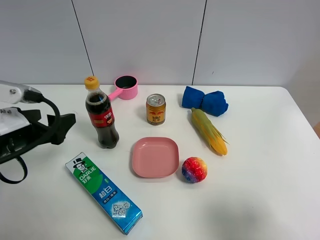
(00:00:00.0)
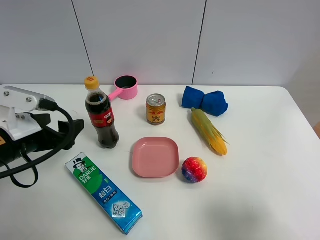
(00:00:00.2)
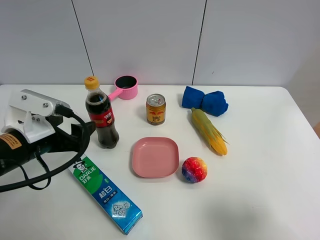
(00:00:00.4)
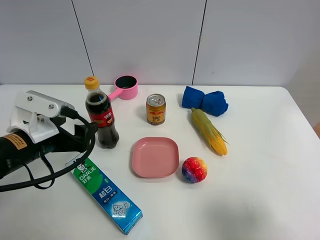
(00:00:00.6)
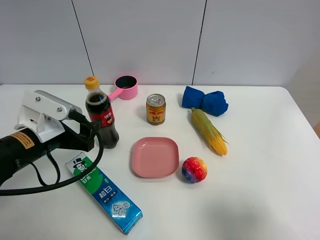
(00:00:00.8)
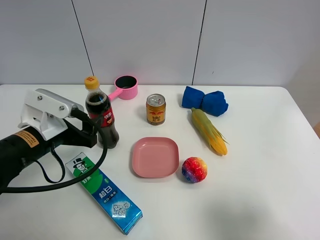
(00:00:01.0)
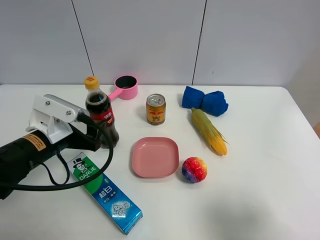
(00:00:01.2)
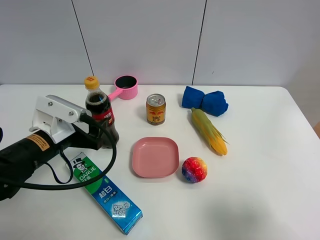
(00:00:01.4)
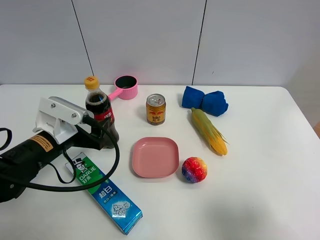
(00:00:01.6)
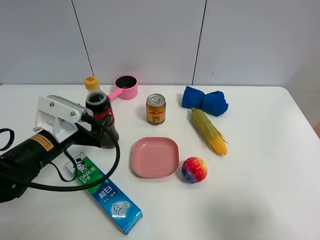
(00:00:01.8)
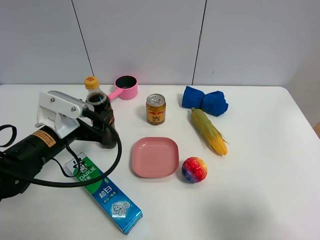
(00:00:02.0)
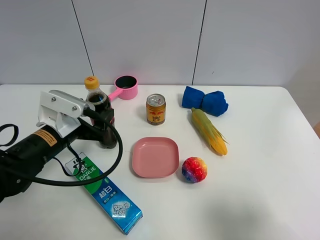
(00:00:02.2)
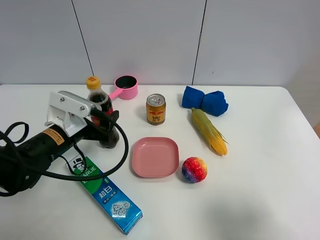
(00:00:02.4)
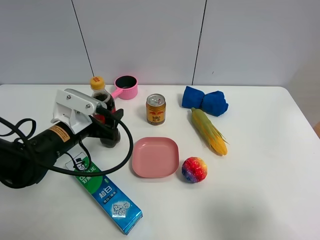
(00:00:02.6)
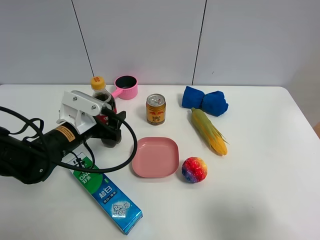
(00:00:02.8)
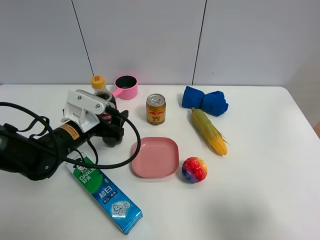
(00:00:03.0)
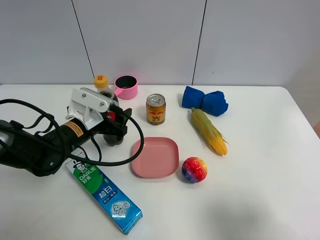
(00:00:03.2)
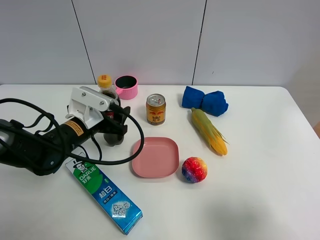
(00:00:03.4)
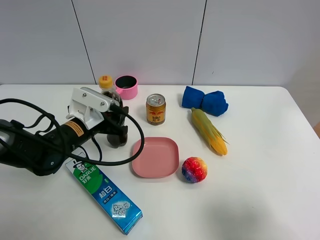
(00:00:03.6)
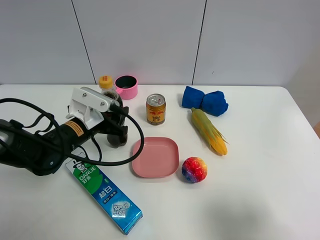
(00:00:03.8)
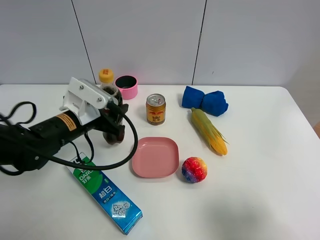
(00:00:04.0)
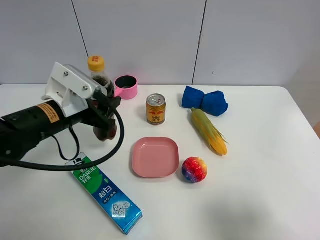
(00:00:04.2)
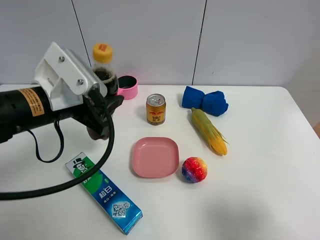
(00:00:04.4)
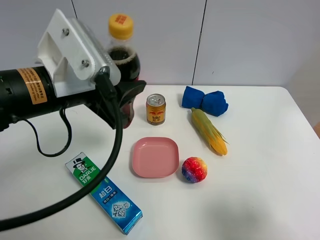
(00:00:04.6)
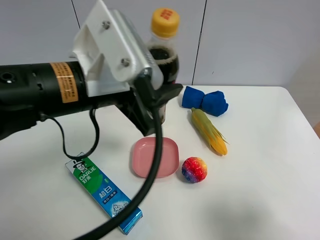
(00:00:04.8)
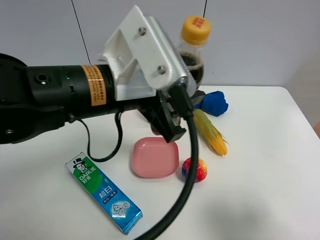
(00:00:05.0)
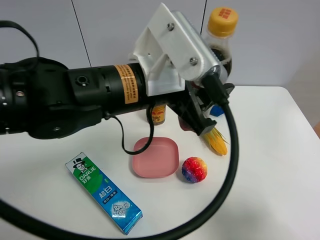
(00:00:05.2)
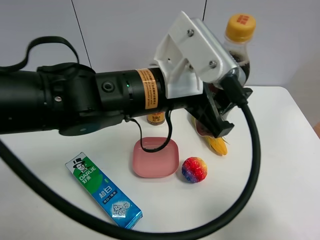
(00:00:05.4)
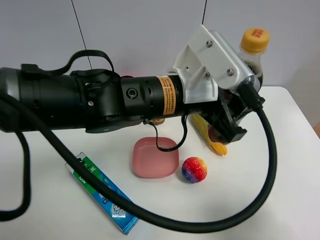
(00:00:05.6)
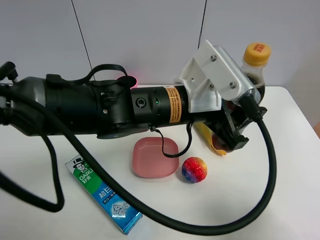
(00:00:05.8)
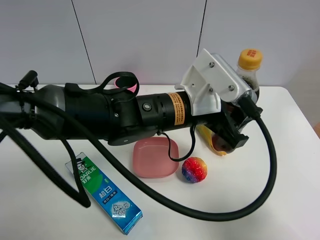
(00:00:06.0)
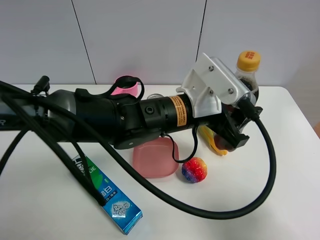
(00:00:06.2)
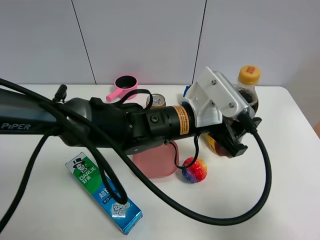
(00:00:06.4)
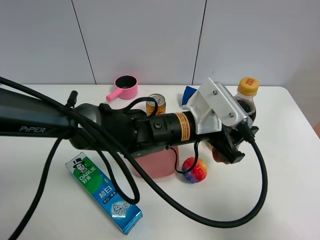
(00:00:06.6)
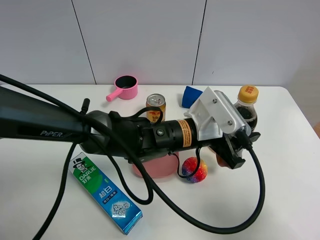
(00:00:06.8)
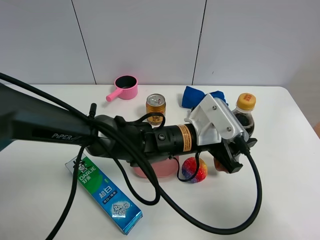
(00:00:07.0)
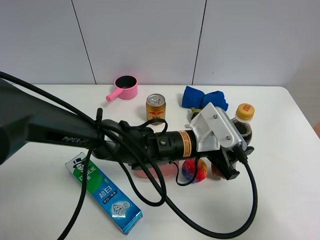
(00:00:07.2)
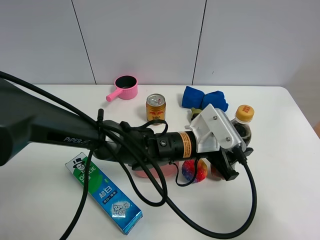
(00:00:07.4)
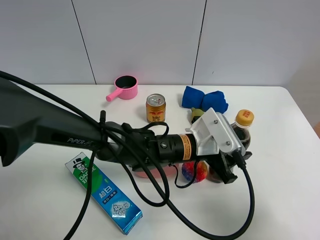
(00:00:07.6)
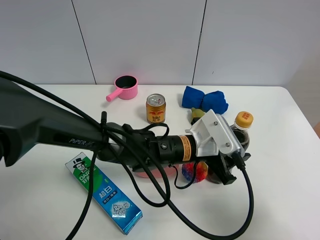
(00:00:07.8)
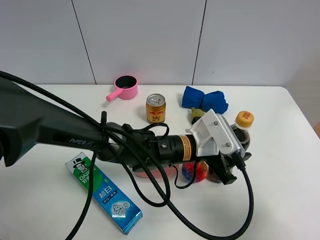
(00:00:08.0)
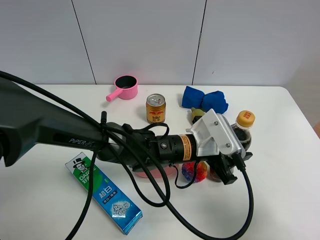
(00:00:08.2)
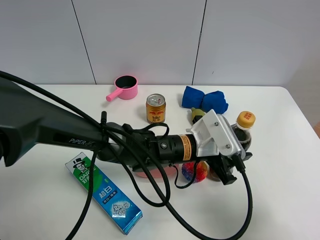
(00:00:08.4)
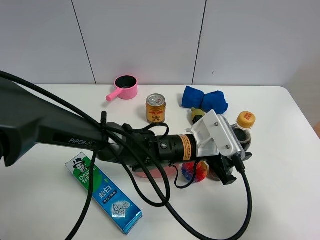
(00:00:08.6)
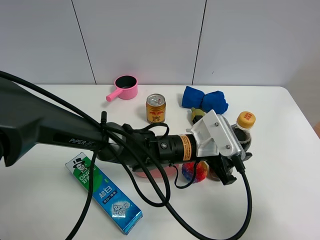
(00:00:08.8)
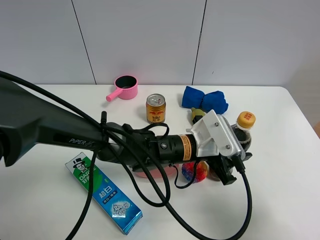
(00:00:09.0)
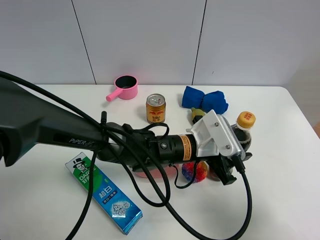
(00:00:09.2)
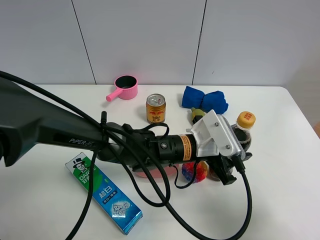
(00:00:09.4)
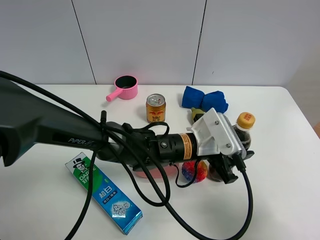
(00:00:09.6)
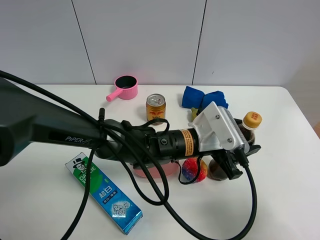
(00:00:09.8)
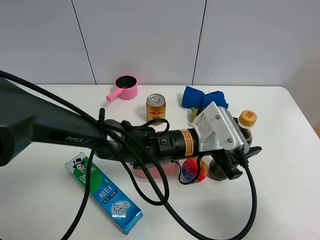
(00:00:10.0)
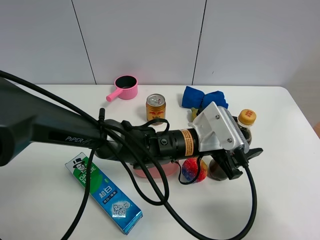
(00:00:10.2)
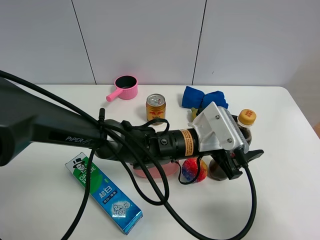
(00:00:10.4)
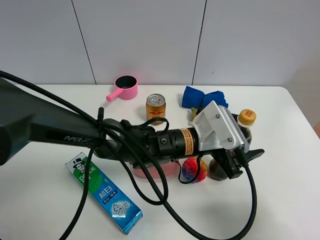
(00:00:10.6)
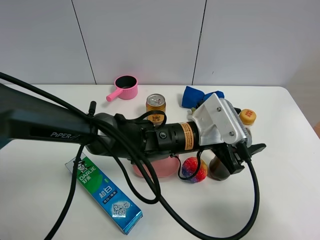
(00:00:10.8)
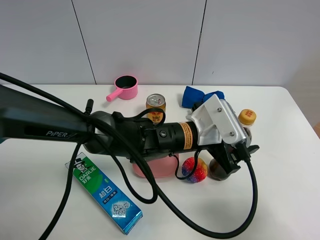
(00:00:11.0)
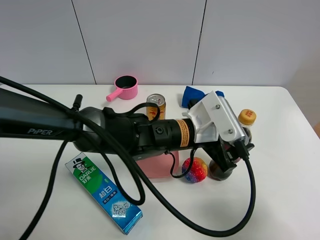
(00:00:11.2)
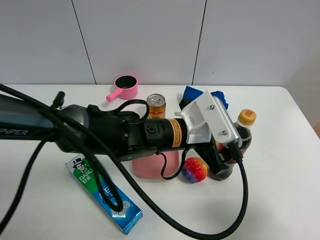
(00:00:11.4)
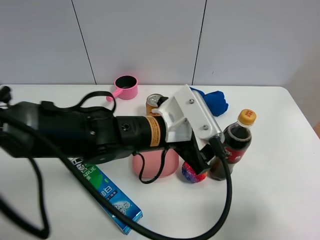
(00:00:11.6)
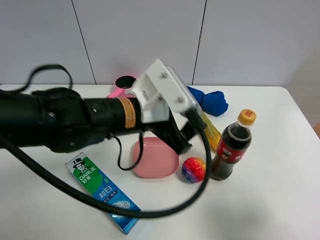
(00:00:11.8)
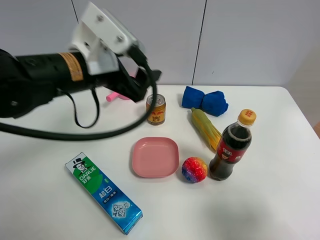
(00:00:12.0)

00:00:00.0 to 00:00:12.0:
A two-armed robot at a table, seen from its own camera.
Task of the whole recording: the gripper move the object.
Step, 00:00:00.0 to 00:00:03.4: Grasp the coke with the left gripper.
Step, 00:00:03.6 to 00:00:10.2: Place the coke on the table with the left gripper.
00:00:00.0 to 00:00:01.6: The left gripper goes about 10 cm downward and to the right.
00:00:01.6 to 00:00:03.0: The left gripper changes place by roughly 5 cm.
00:00:03.0 to 00:00:04.4: The left gripper heads upward, covering about 15 cm, and closes its fingers.
00:00:04.4 to 00:00:06.0: The left gripper moves to the right, approximately 20 cm.
00:00:06.0 to 00:00:07.6: The left gripper travels downward by approximately 10 cm.
00:00:07.6 to 00:00:09.0: Both grippers stay put.
00:00:09.0 to 00:00:10.4: The left gripper opens.
00:00:10.4 to 00:00:12.0: The left gripper travels to the left and upward by some 25 cm.

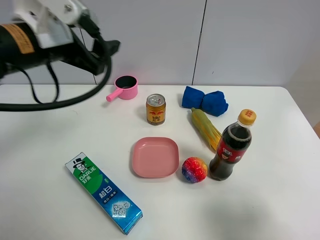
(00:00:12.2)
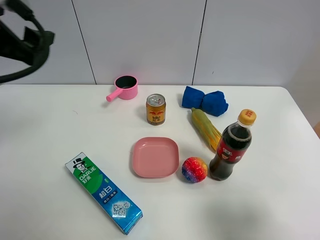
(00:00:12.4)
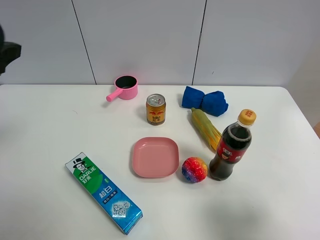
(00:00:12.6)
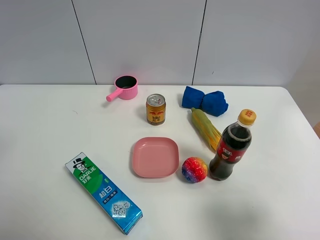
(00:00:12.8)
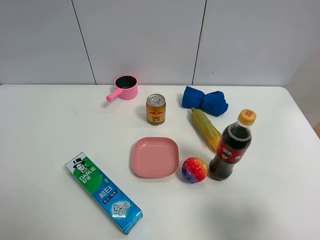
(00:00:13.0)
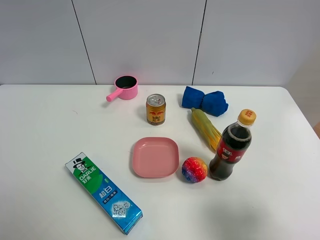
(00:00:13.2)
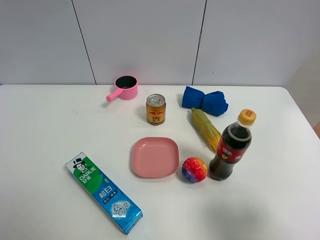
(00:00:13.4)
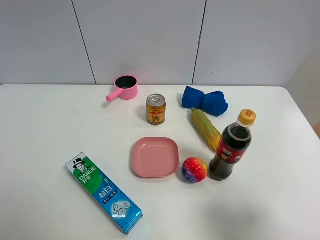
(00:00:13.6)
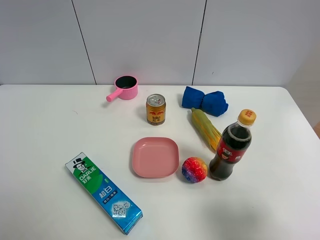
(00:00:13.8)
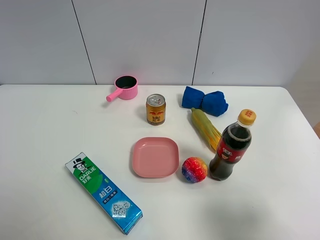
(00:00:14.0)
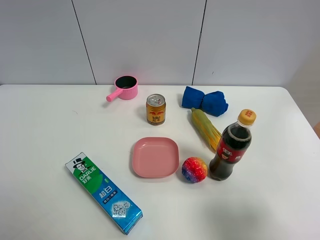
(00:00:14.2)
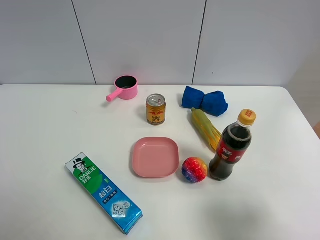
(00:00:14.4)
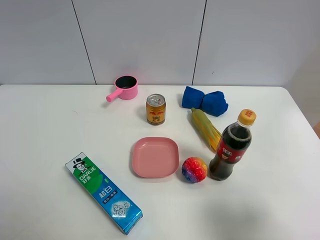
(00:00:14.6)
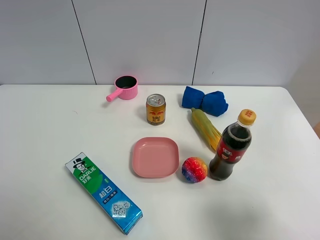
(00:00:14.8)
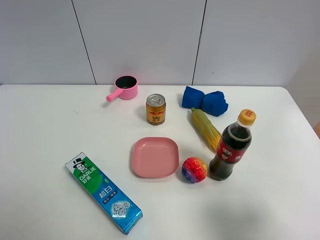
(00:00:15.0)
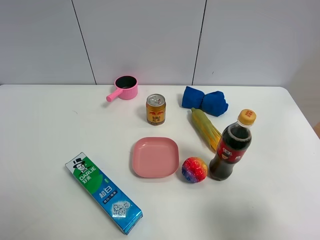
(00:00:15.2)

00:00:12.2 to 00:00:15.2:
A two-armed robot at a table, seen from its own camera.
Task of the whole recording: the gripper move the object.
00:00:12.2 to 00:00:13.8: The left gripper goes approximately 35 cm backward and to the left.

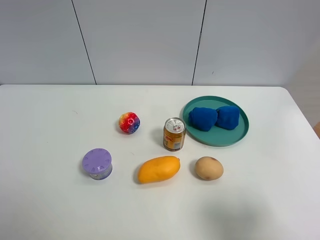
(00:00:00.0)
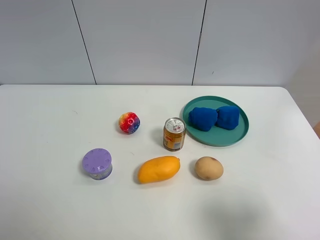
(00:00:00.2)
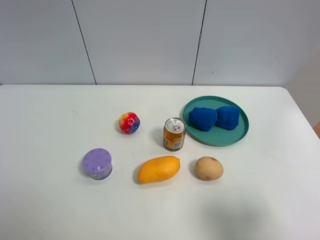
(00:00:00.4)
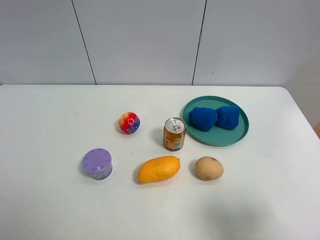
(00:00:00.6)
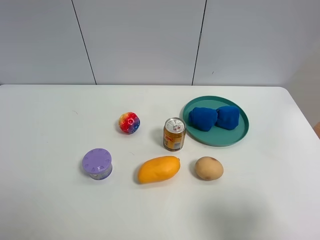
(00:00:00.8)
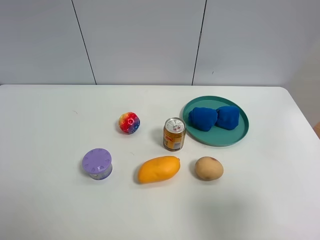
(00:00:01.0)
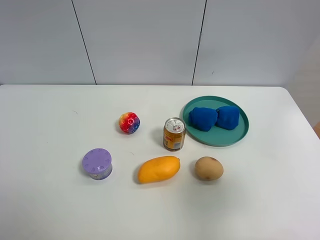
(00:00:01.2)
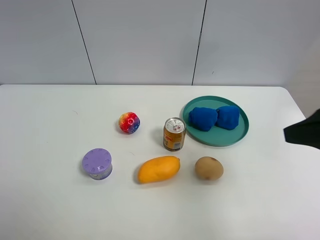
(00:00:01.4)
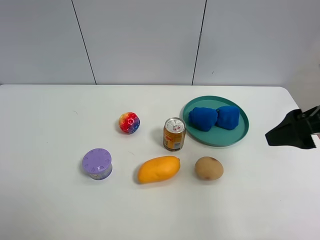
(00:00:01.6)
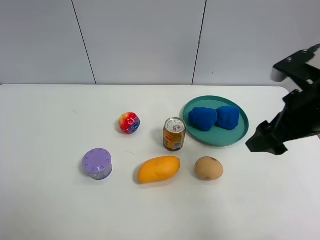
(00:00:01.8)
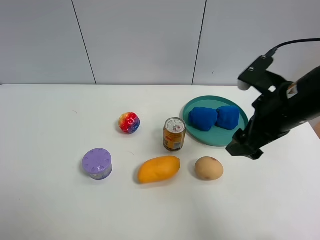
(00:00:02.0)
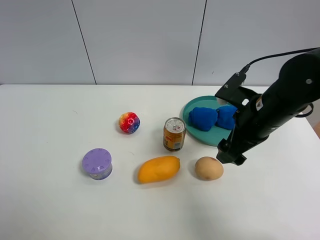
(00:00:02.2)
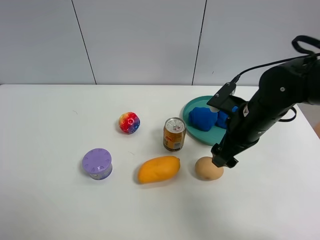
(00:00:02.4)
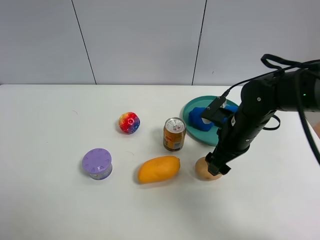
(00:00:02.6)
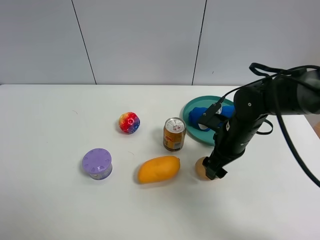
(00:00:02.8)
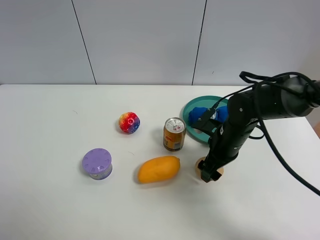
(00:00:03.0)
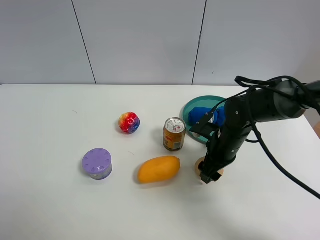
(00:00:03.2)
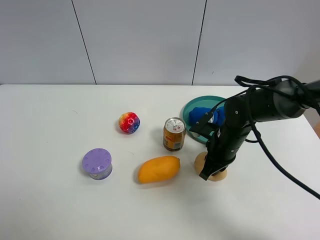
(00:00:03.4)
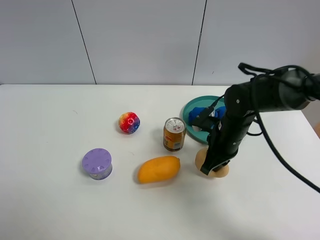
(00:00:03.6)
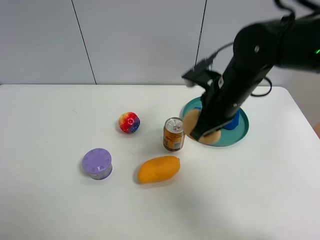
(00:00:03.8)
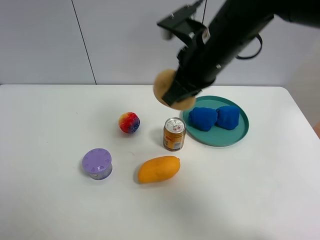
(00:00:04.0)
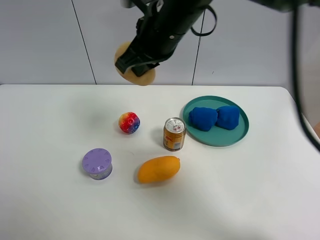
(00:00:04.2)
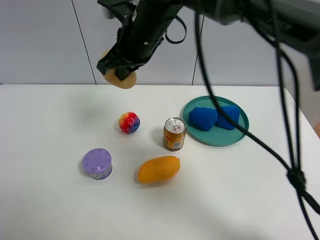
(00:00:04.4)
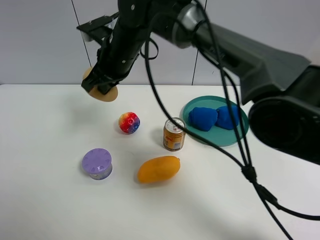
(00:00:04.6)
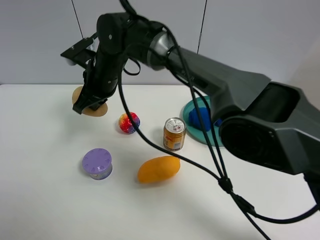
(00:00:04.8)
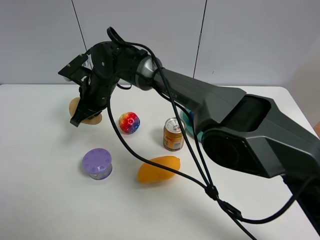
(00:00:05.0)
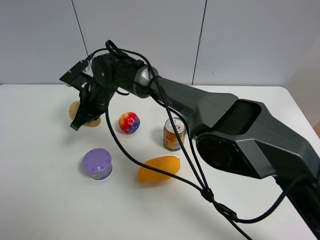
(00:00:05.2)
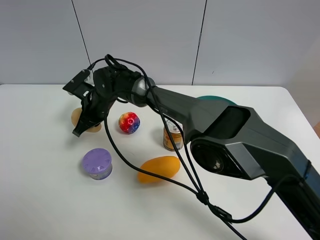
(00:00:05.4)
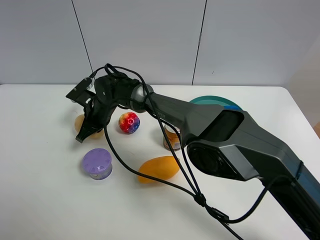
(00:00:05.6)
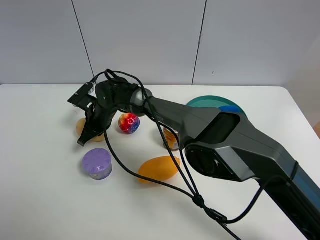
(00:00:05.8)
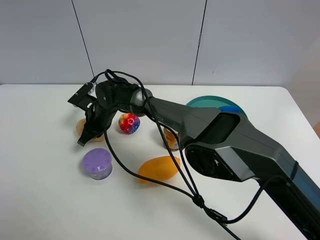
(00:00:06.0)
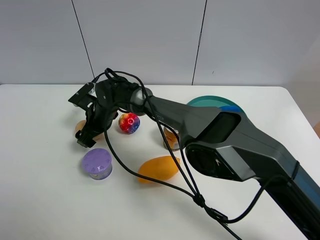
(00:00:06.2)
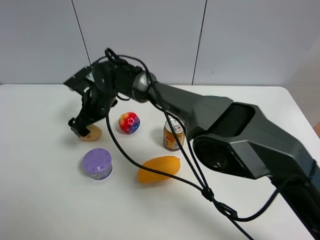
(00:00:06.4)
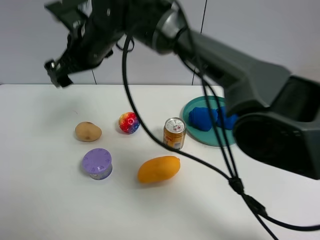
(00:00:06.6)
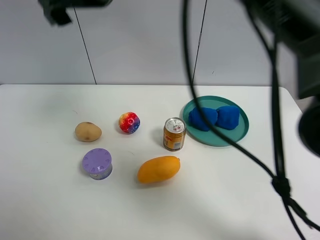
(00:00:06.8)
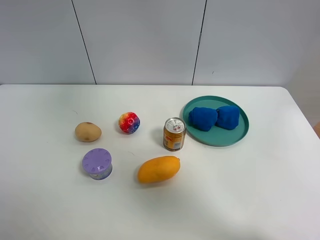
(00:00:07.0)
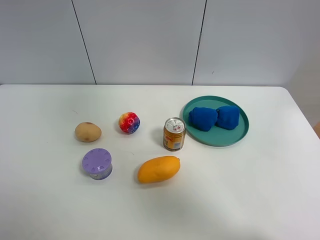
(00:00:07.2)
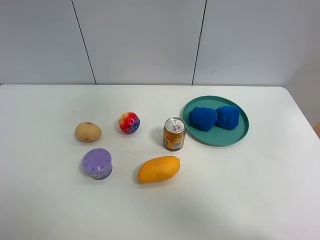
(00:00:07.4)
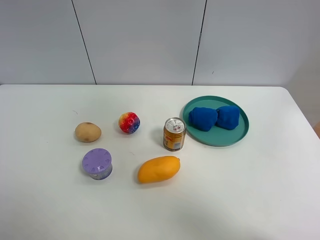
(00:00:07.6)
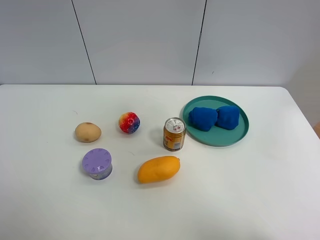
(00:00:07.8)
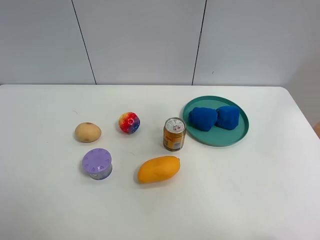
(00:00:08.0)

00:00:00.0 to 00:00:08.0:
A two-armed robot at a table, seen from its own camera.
Task of the whole recording: the gripper move the object.
Step, 00:00:00.0 to 00:00:03.4: Grasp the egg yolk pastry with the right gripper.
Step, 00:00:03.6 to 00:00:06.4: Place the egg yolk pastry on the table with the right gripper.
00:00:00.0 to 00:00:01.6: The right gripper heads forward, covering about 15 cm.
00:00:01.6 to 00:00:03.2: The right gripper is displaced downward, to the left and forward by roughly 25 cm.
00:00:03.2 to 00:00:04.8: The right gripper travels to the left and upward by some 30 cm, and closes.
00:00:04.8 to 00:00:06.4: The right gripper goes some 5 cm downward, and opens up.
00:00:06.4 to 00:00:08.0: The right gripper heads to the right, upward and backward, covering about 70 cm.
